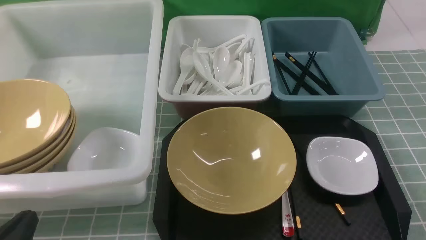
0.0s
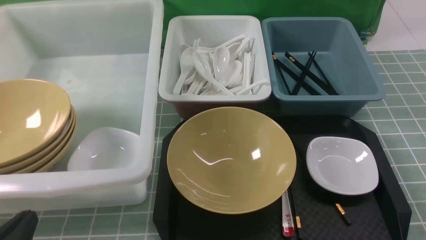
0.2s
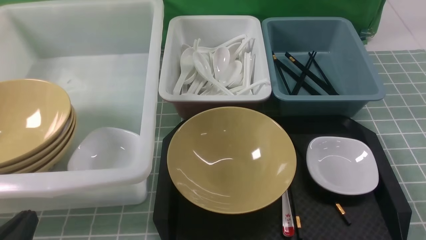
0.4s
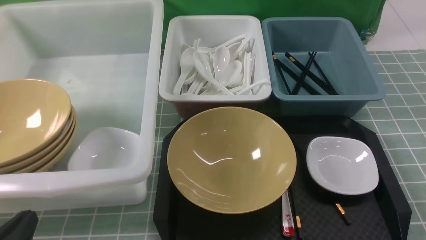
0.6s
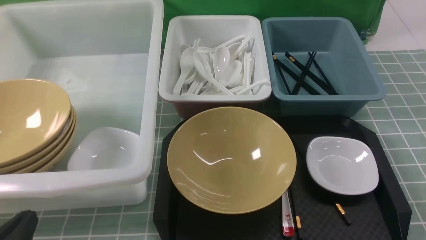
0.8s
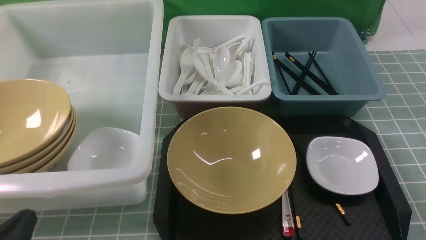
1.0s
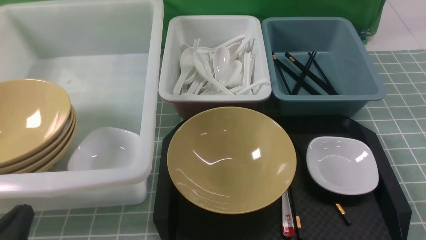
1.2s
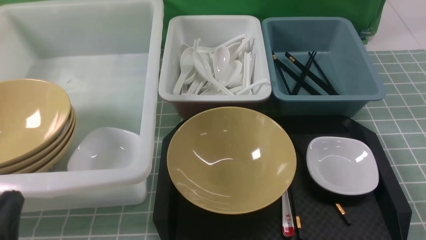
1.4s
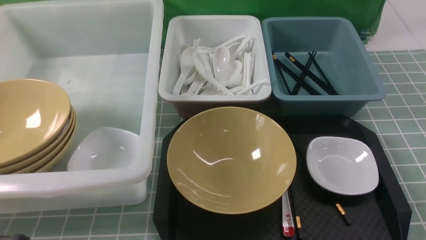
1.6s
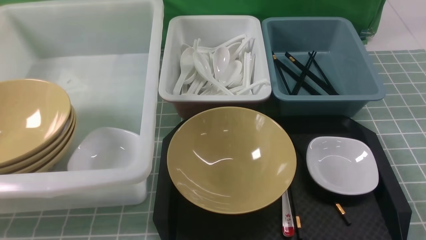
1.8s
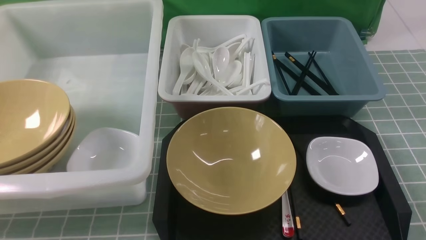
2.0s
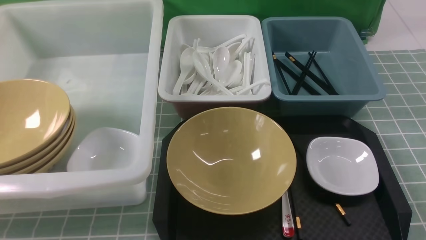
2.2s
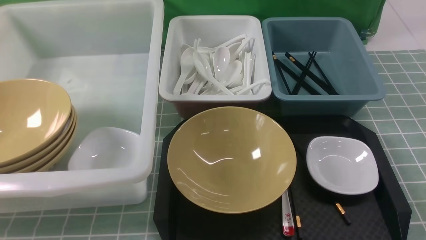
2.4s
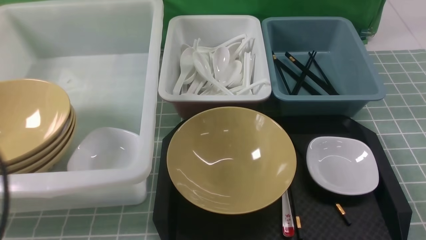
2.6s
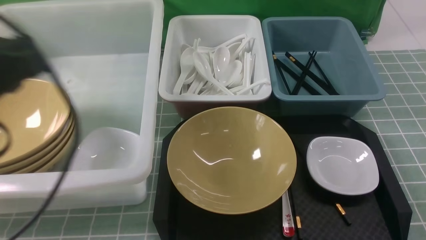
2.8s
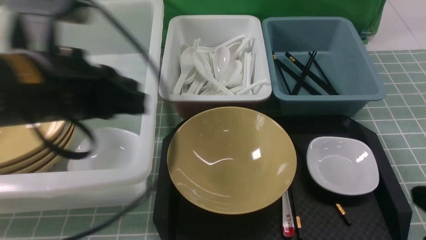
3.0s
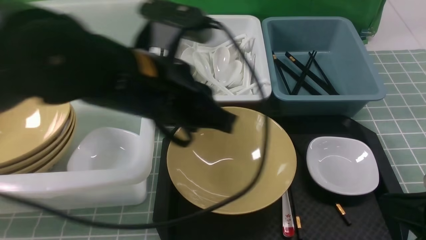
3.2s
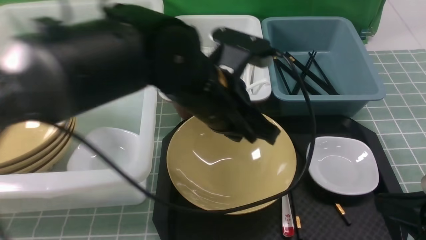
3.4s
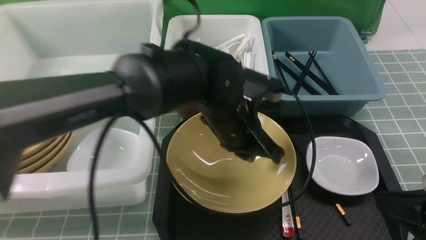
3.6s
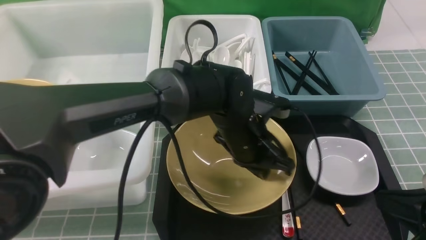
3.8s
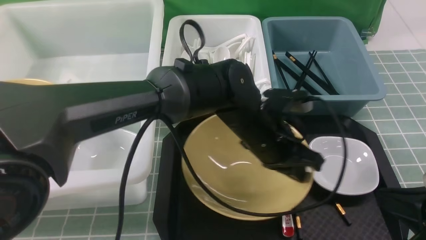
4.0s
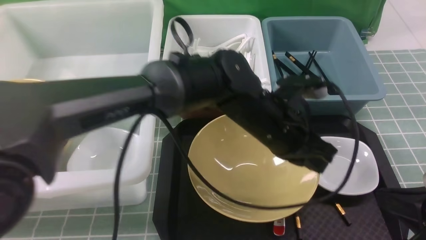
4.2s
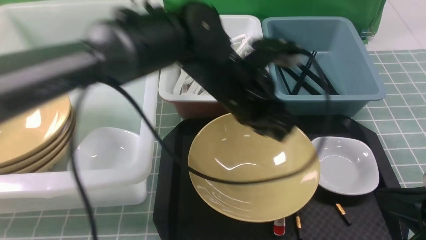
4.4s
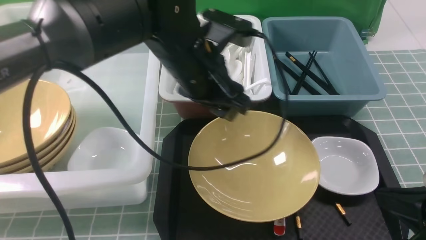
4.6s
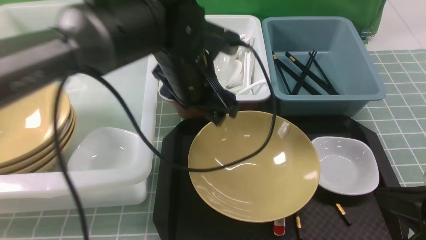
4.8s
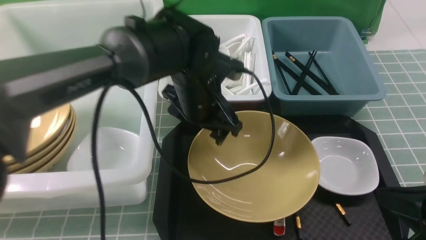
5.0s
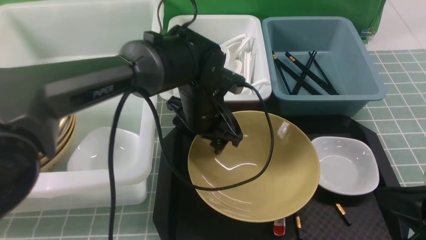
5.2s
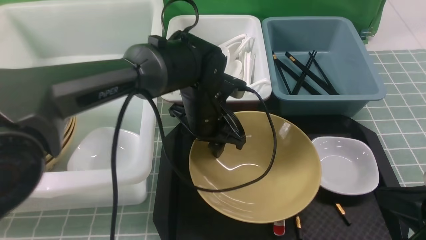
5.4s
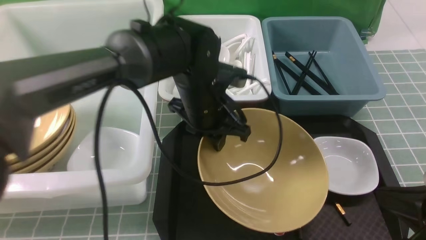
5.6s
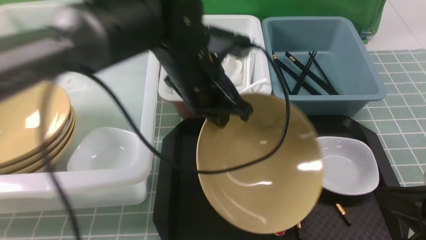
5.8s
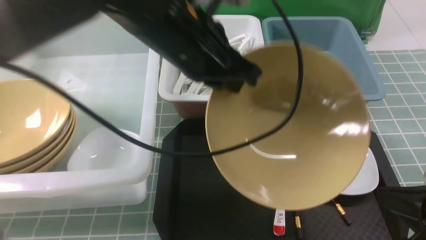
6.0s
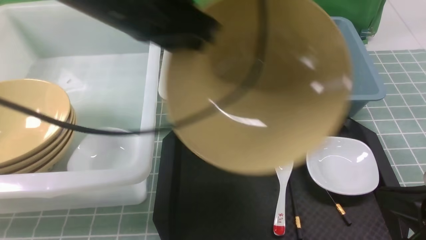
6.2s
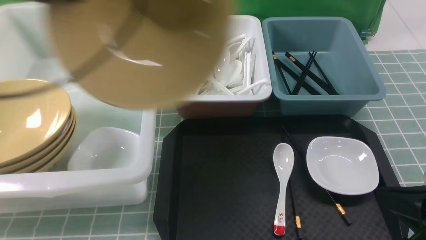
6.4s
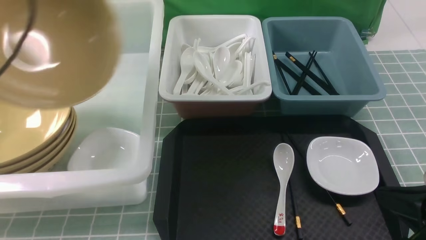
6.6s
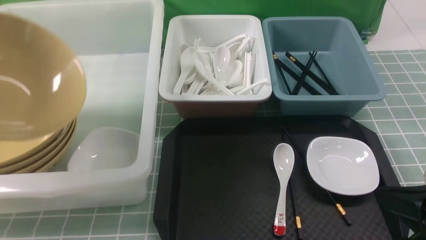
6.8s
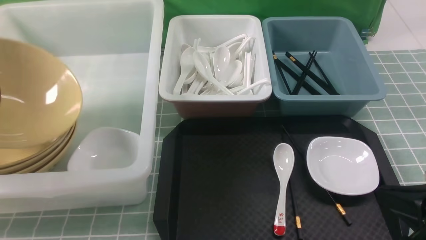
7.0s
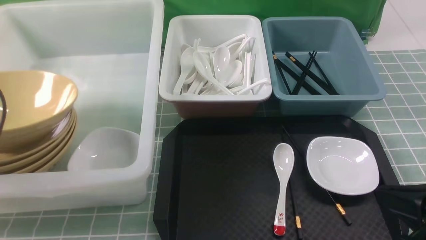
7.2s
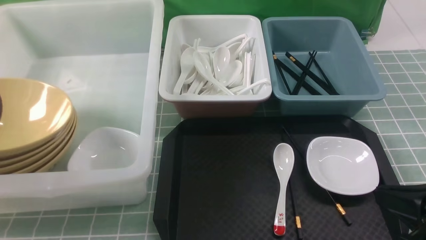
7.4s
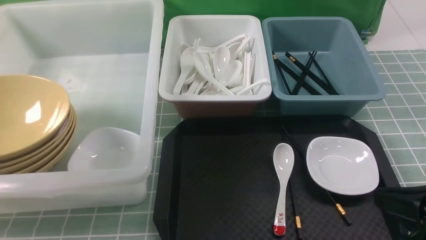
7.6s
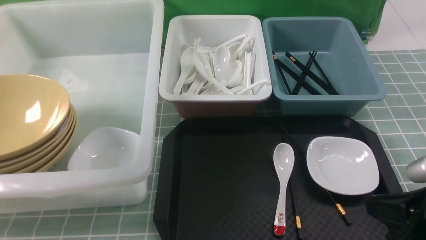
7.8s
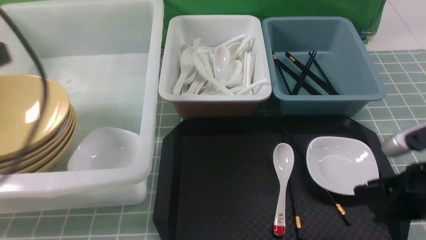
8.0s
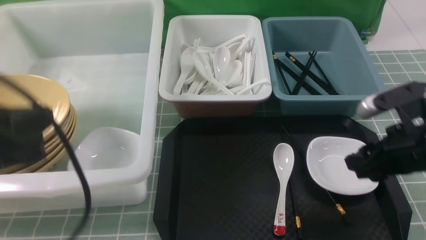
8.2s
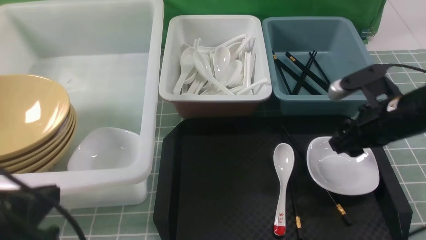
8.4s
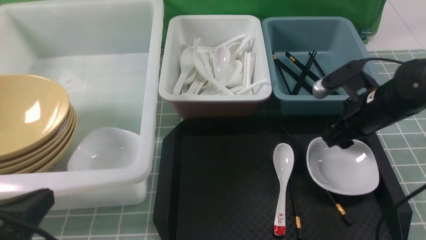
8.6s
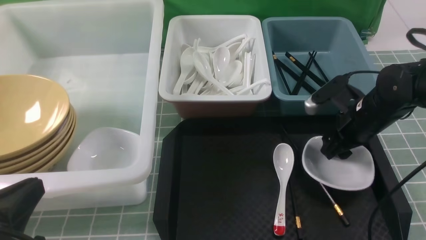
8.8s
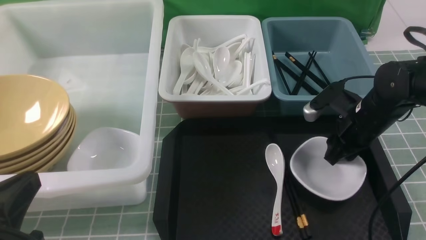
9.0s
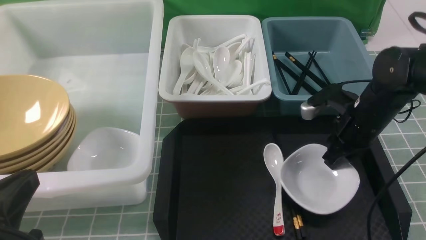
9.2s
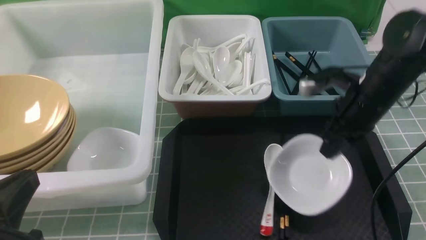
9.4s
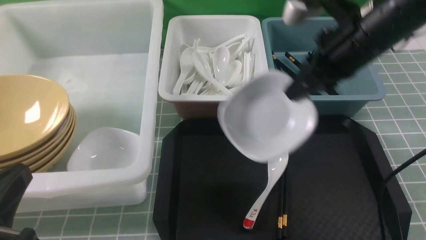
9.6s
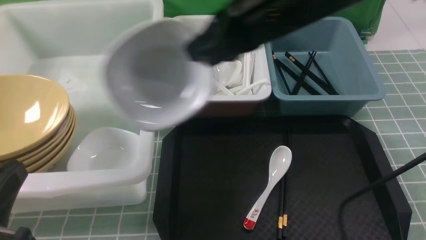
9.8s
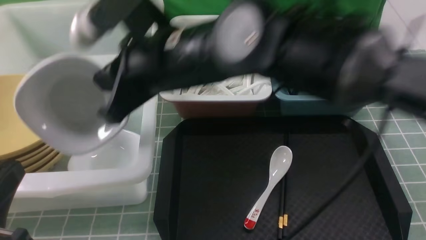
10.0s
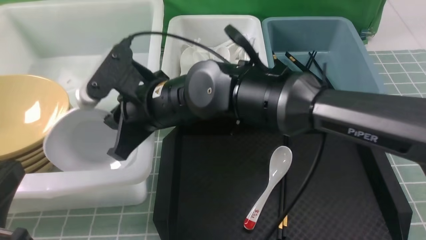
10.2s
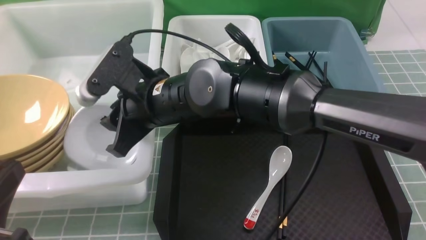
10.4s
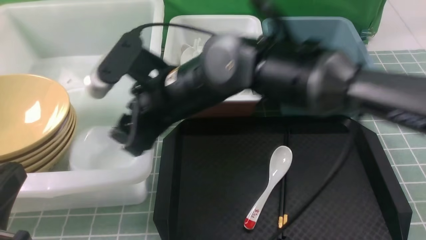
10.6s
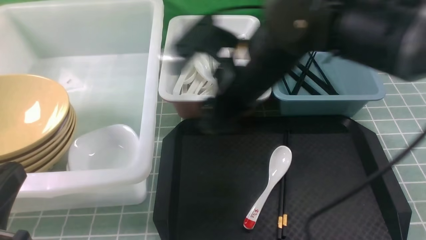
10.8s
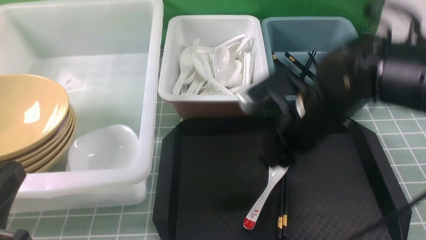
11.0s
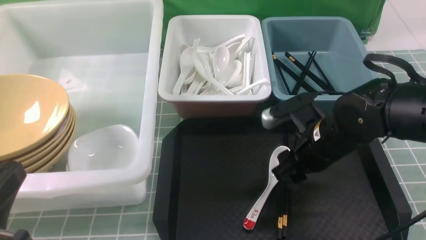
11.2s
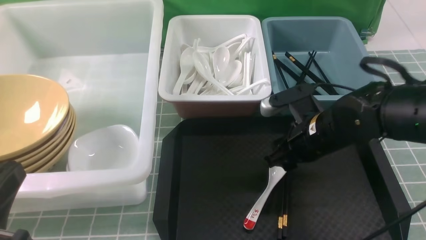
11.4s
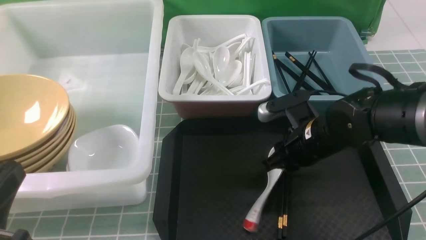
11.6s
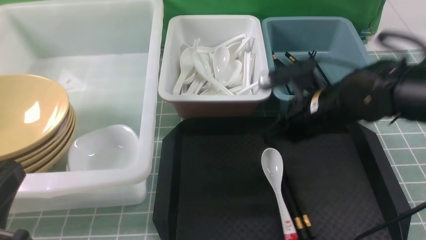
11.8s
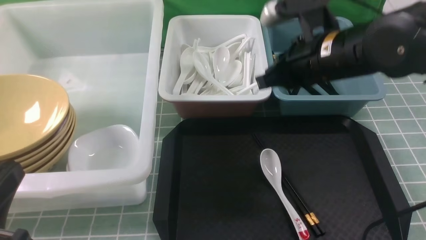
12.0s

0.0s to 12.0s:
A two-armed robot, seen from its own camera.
Task of the whole recording: on blue table put chopsticks spoon bowls plates into blue grey white boxes.
Step, 0.0s to 5.6s: use the left arm to grab the yellow noodle bowl on the left.
Step, 6.0s to 7.6s: use the left arm to put the noodle bowl into the large storage box on the left.
Step, 7.8s to 9.4s: use the right arm to grab the plate.
Step, 9.6s to 10.4s: use the right arm to put the plate into the large storage box on the left.
1.6s to 3.0s: The left gripper is displaced forward, upward and to the right by about 25 cm, while the right gripper shifts about 5 cm forward.
3.0s to 4.4s: The left gripper is displaced to the right, forward and downward by approximately 20 cm, and opens its fingers.
4.4s to 6.0s: The left gripper goes roughly 10 cm upward and to the left, and closes its fingers.
6.0s to 7.6s: The left gripper travels to the left by some 30 cm, and opens its fingers.
7.6s to 9.0s: The left gripper goes some 20 cm backward, to the right and downward, and closes. The right gripper heads forward, covering some 20 cm, and opens up.
9.0s to 10.4s: The right gripper heads to the left, covering some 30 cm, and closes and opens again.
10.4s to 12.0s: The right gripper heads to the right, covering roughly 20 cm, and closes its fingers.

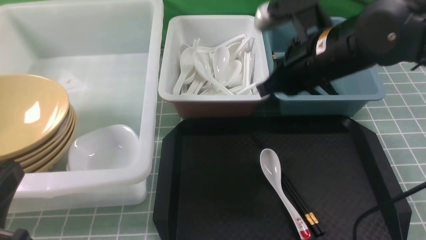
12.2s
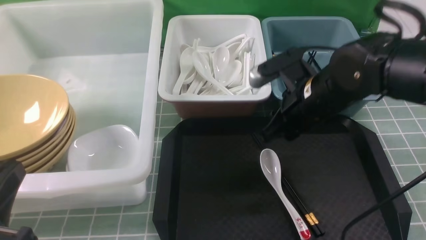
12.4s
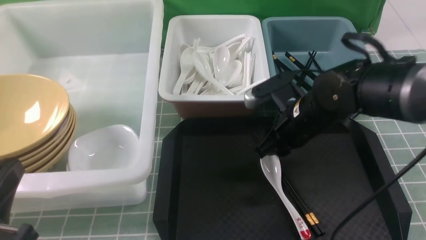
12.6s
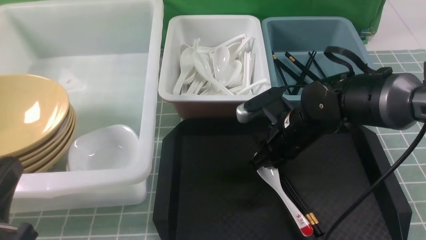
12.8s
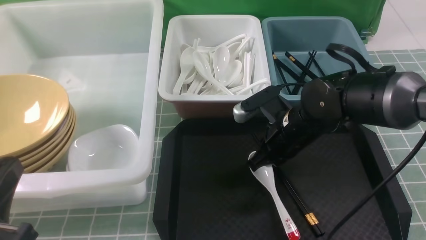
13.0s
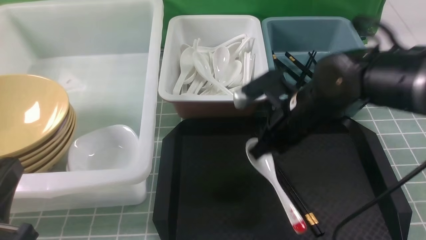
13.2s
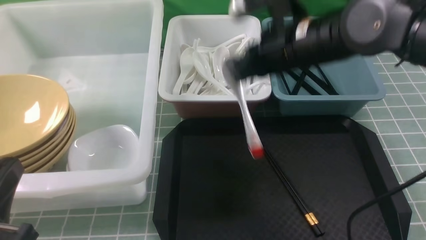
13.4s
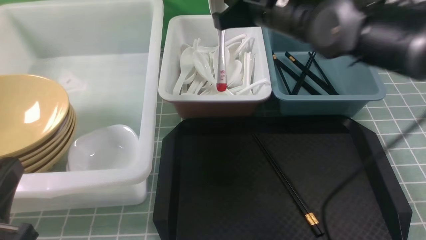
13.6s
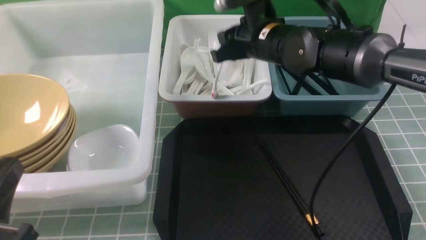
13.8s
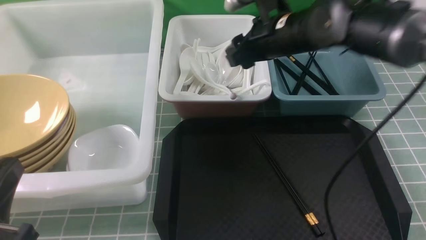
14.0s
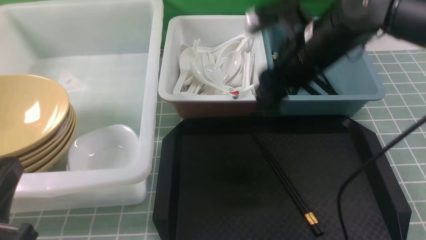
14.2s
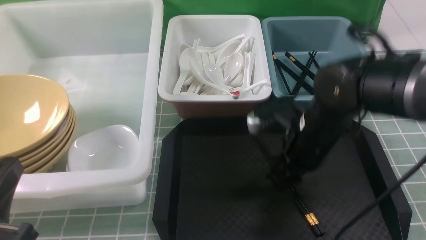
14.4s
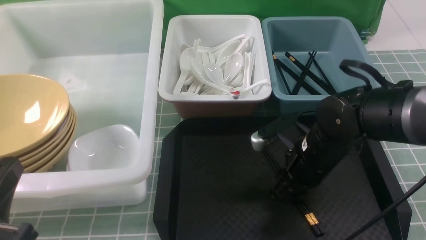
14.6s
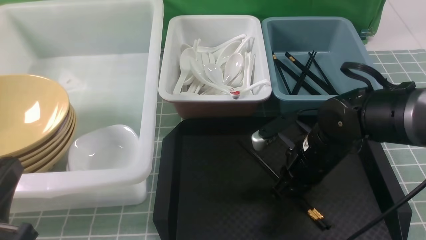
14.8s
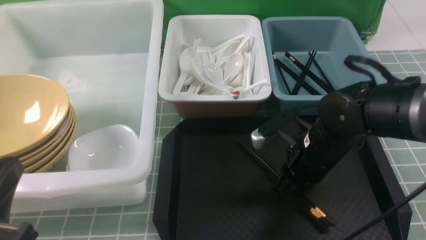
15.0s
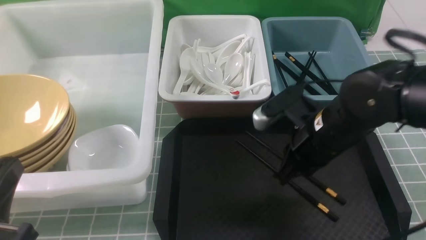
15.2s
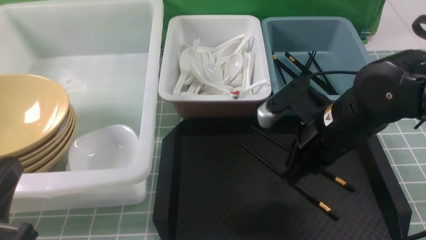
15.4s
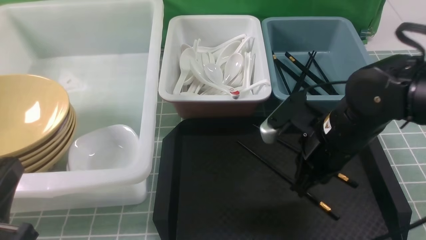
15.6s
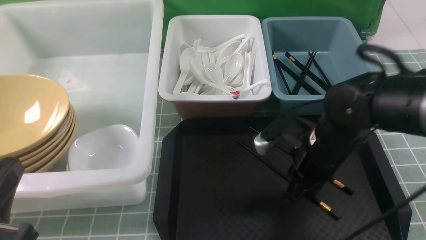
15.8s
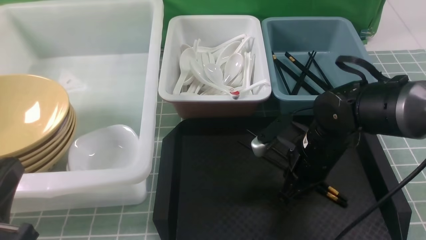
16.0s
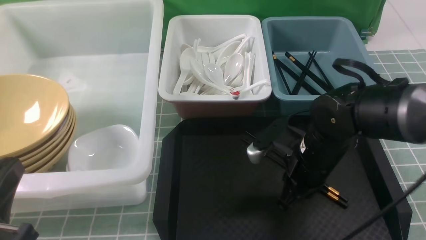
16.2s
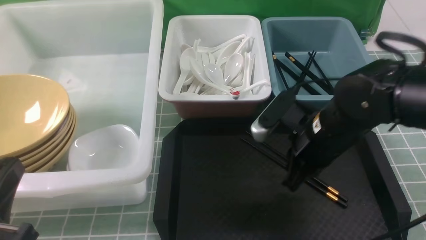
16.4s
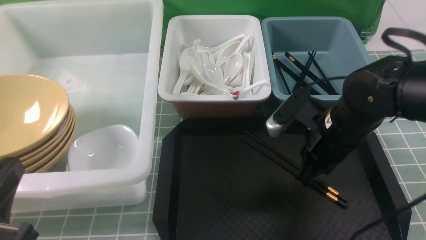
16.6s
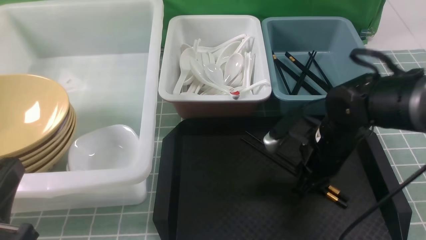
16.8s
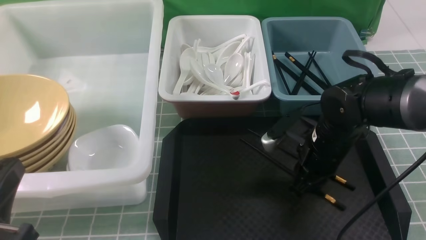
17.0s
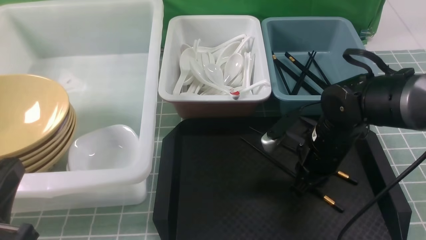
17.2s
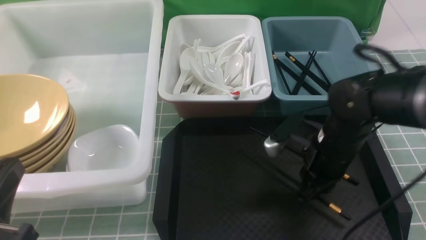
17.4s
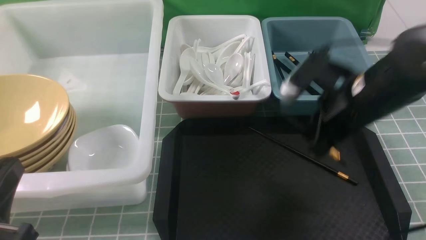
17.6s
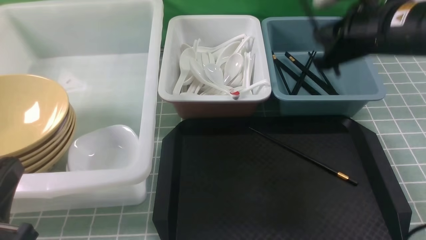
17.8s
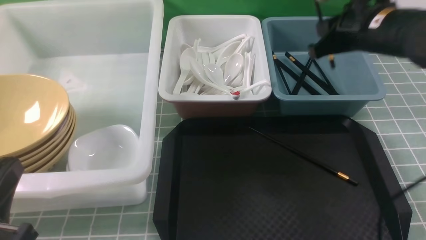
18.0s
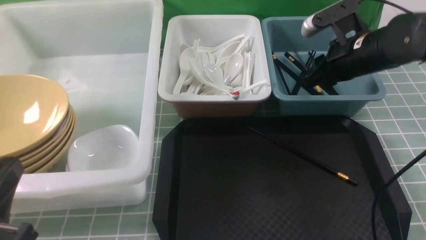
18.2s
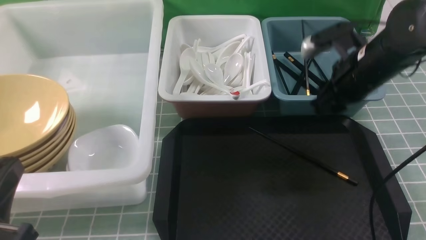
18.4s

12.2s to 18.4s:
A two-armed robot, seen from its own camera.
Task of the whole recording: on blue table put chopsticks spoon bowls plates into blue grey white boxes.
Step, 13.4s to 14.0s: use the right arm to put the soup spoon into the small storage box in the middle.
Step, 14.2s to 17.6s: use the right arm to grab a chopstick.
Step, 17.8s to 18.2s: use the right arm to put a chopstick into the small storage box on the right.
12.2s to 13.8s: The right gripper goes roughly 10 cm forward, moves approximately 10 cm downward and comes back, and opens up.
13.8s to 15.4s: The right gripper heads backward and downward, covering about 15 cm, and closes its fingers.
15.4s to 16.8s: The right gripper moves downward, approximately 5 cm.
16.8s to 18.4s: The right gripper heads upward, forward and to the right, covering some 10 cm.
